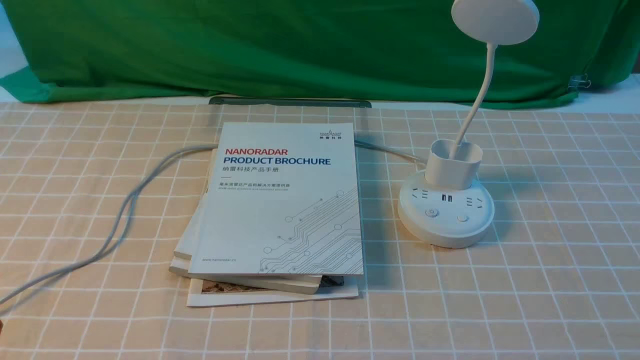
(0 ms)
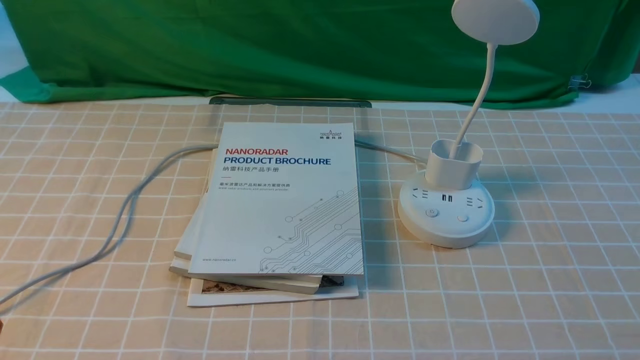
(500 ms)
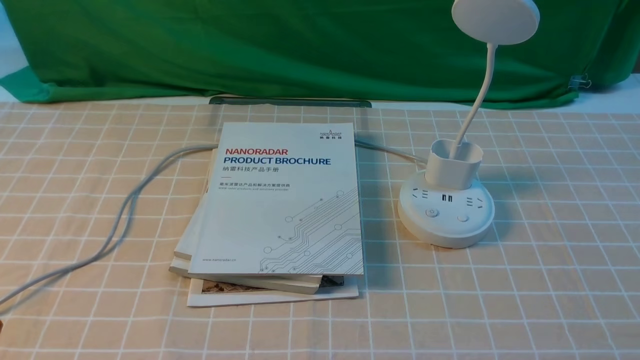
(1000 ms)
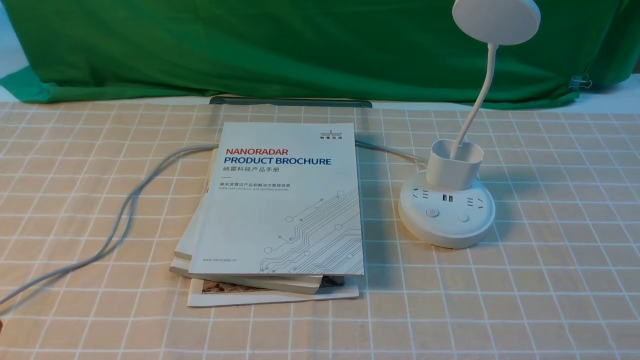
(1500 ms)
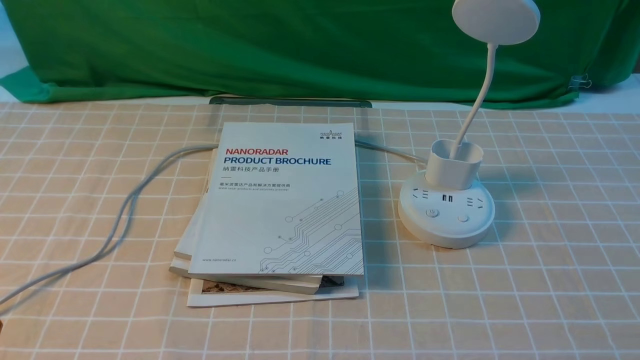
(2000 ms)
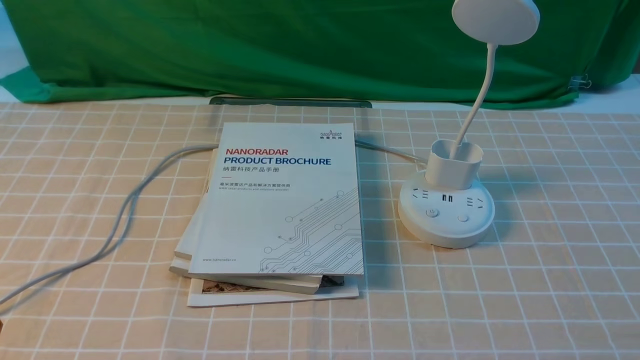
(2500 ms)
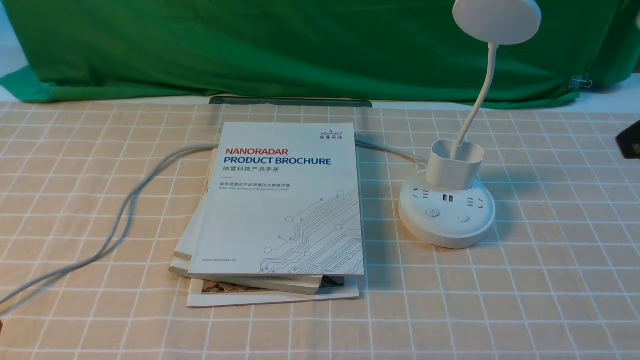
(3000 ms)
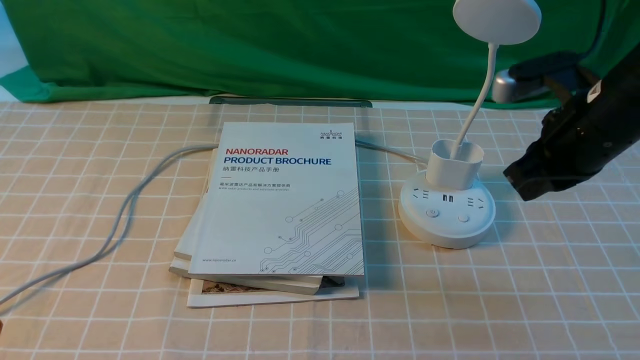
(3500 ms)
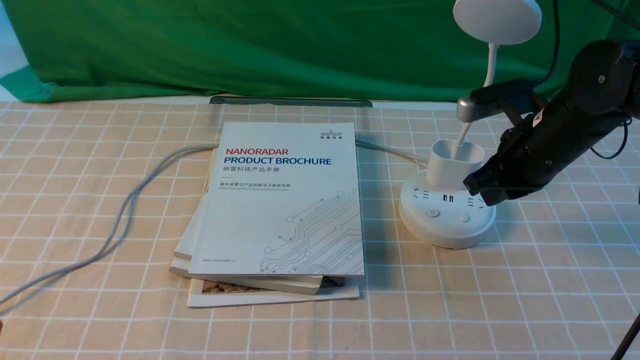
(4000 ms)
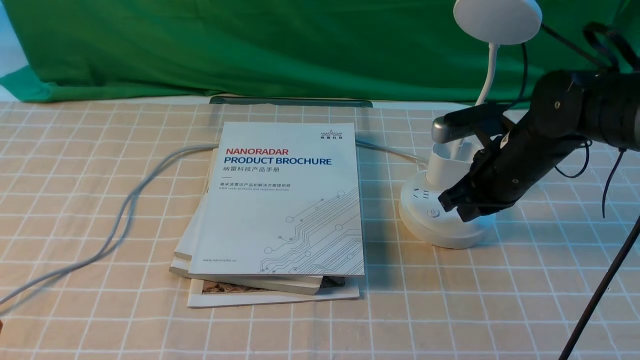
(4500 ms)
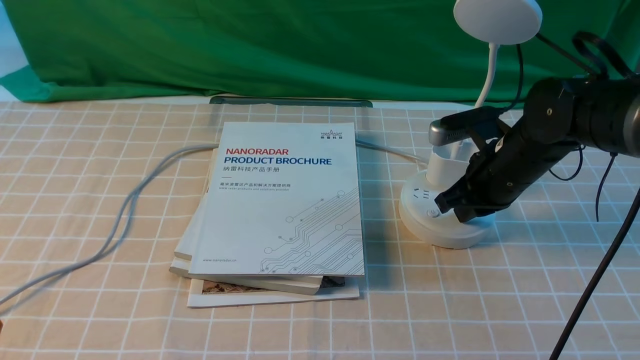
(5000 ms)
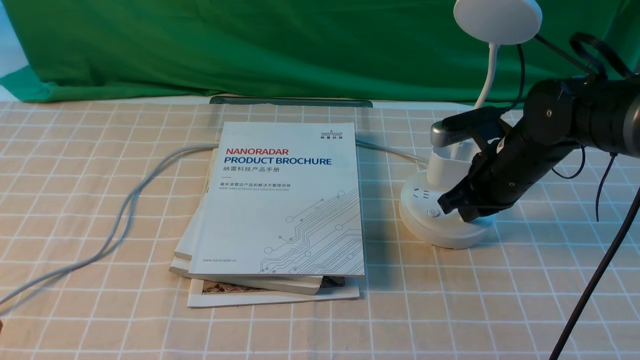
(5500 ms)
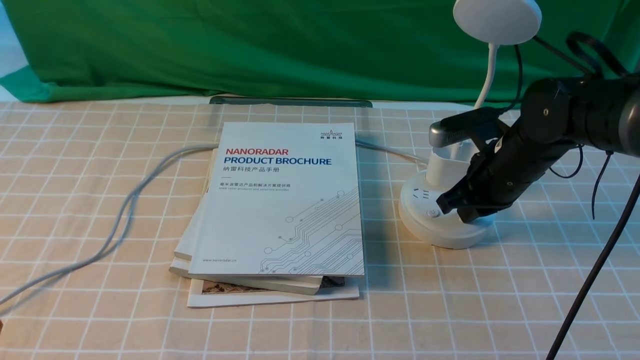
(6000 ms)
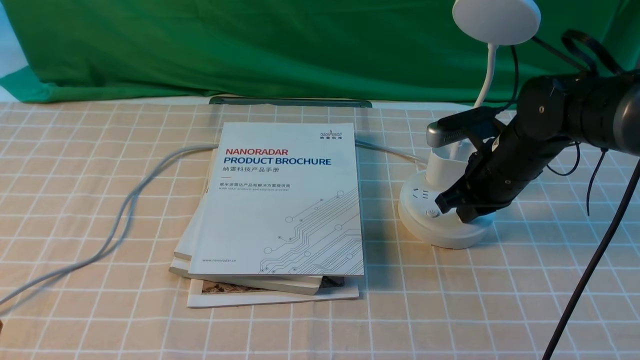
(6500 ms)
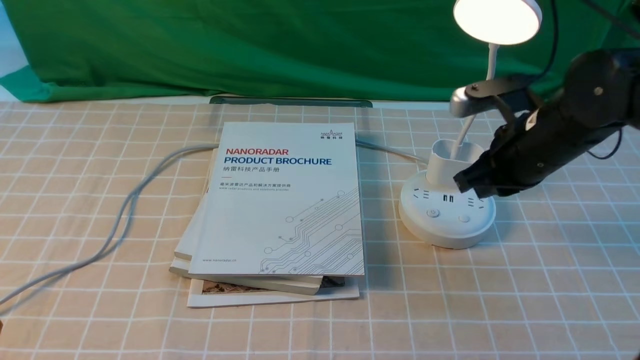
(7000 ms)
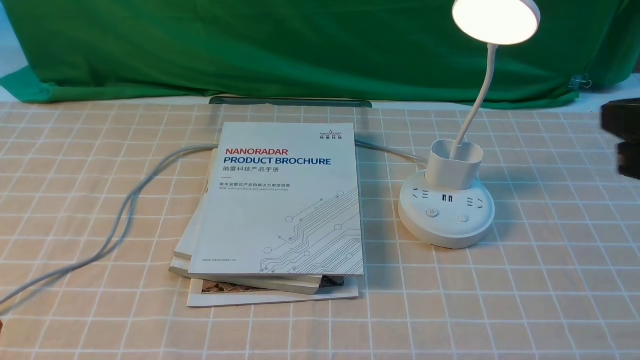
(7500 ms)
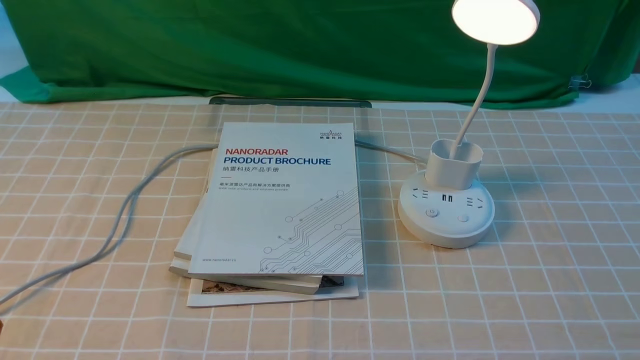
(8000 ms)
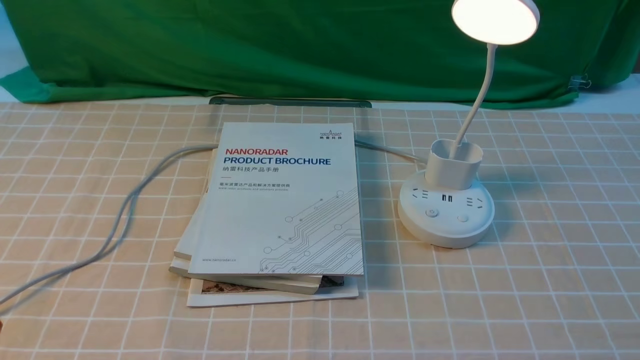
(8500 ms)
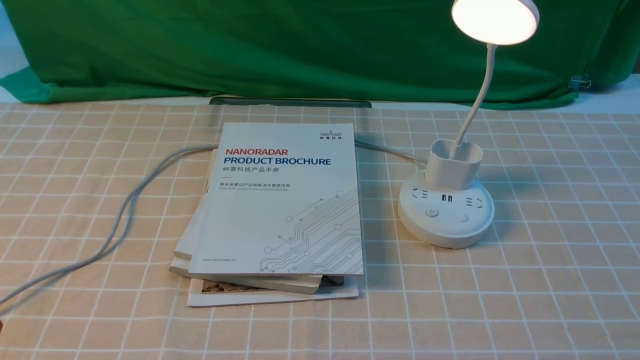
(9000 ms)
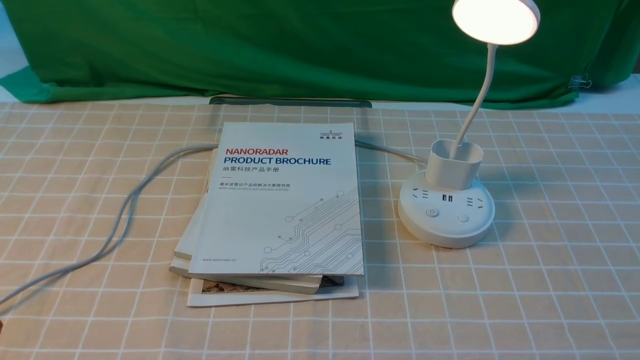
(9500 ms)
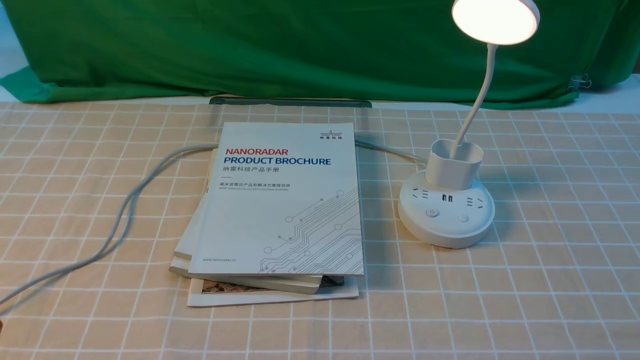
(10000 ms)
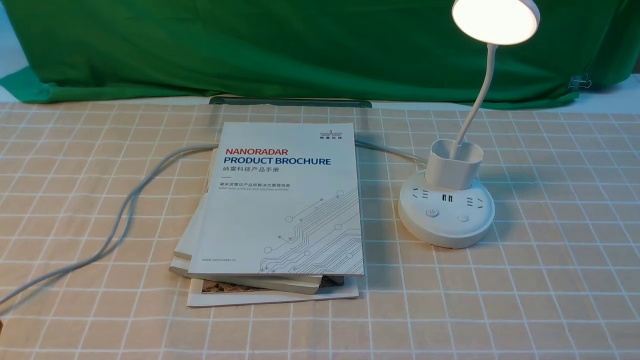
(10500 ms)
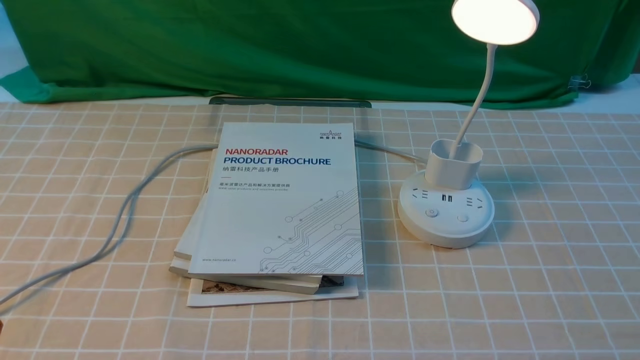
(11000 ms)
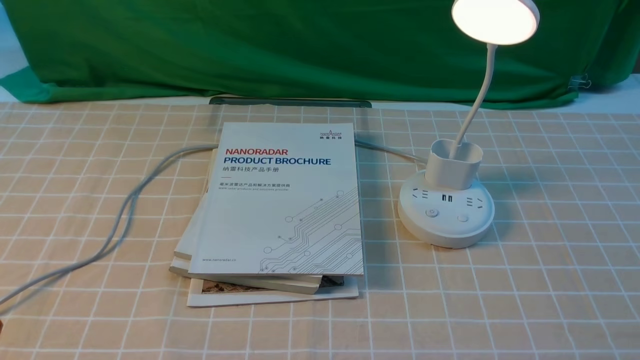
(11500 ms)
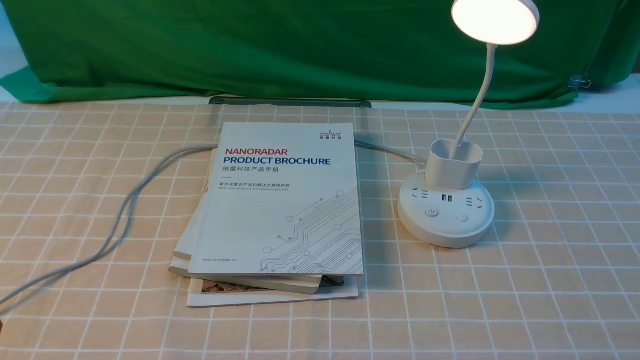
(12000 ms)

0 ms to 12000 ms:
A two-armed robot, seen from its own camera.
Step, 0 ms to 7000 ms: use the right arm to press the button switch on the lamp holder.
2000 ms to 4000 ms: The right gripper travels forward by approximately 30 cm, and closes up.
4000 ms to 6000 ms: The right gripper heads downward, covering about 5 cm.
6000 ms to 8000 ms: The right gripper shifts approximately 30 cm backward and upward.
10000 ms to 12000 ms: Neither gripper changes place.

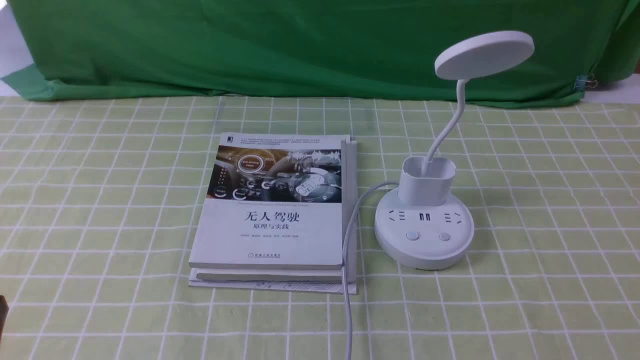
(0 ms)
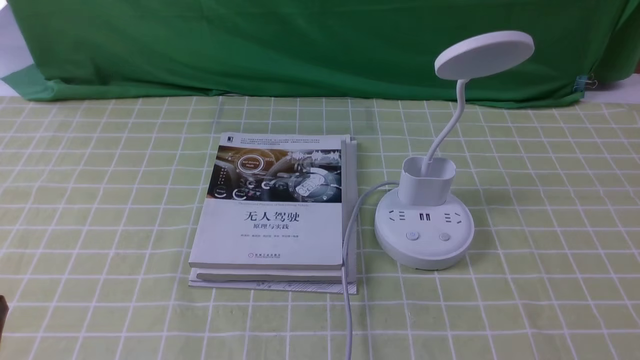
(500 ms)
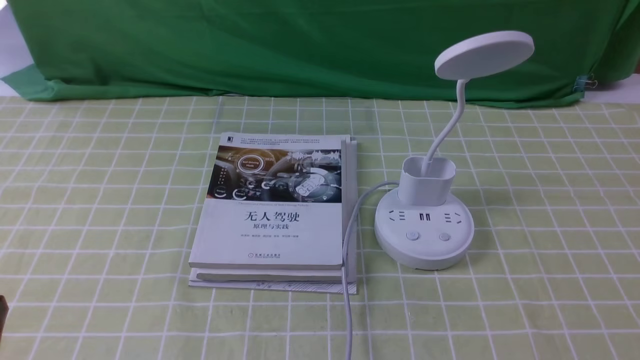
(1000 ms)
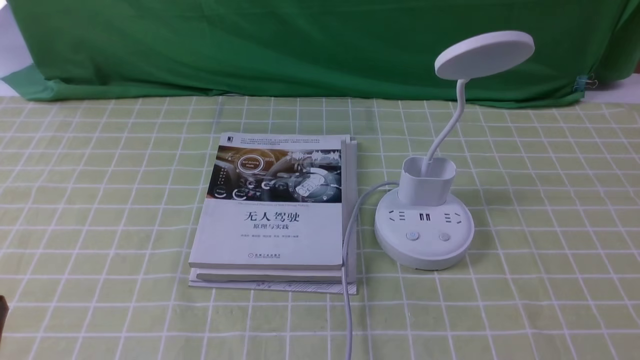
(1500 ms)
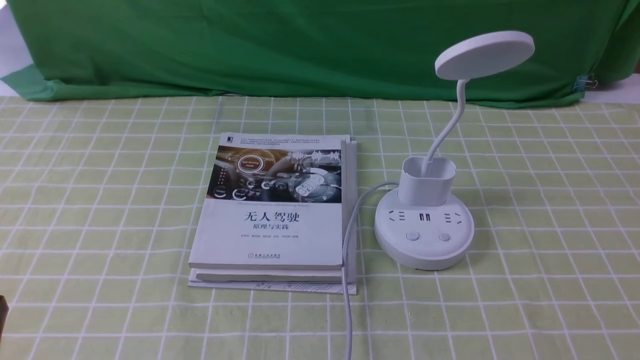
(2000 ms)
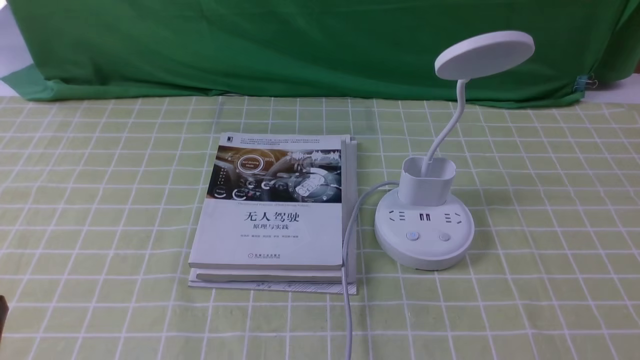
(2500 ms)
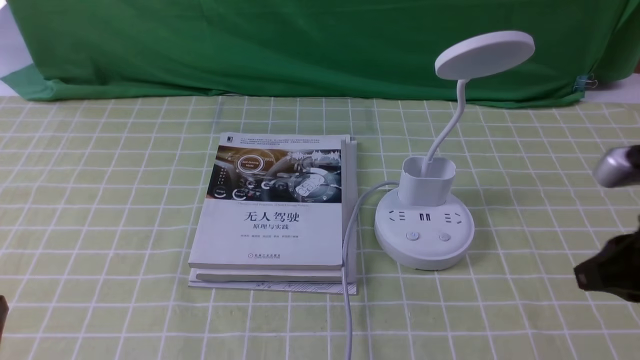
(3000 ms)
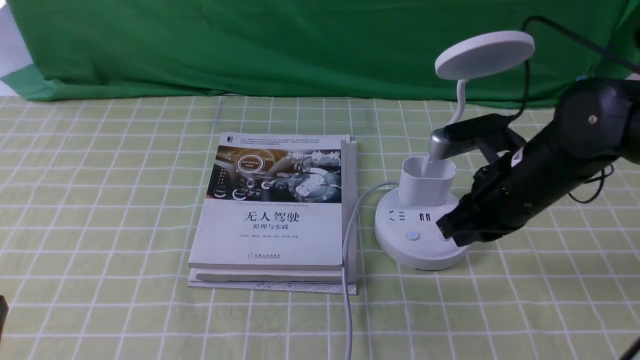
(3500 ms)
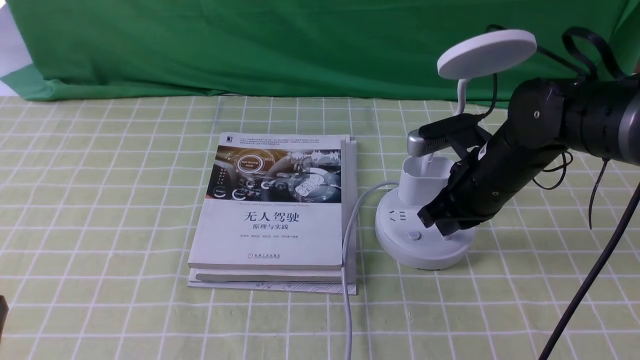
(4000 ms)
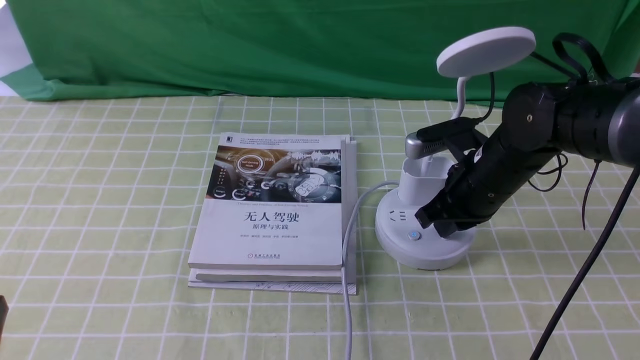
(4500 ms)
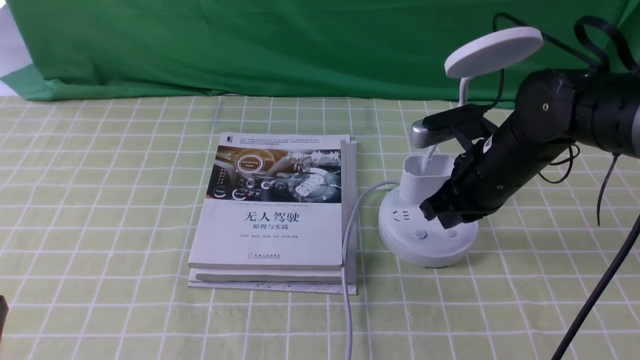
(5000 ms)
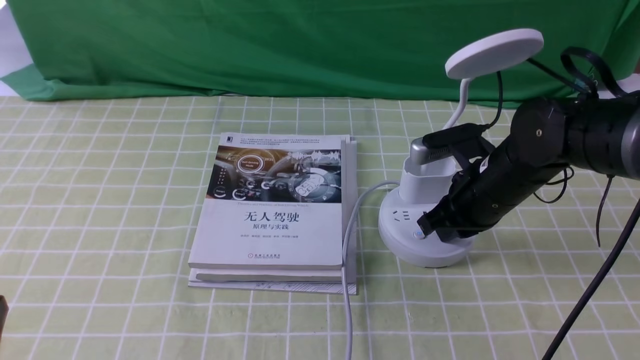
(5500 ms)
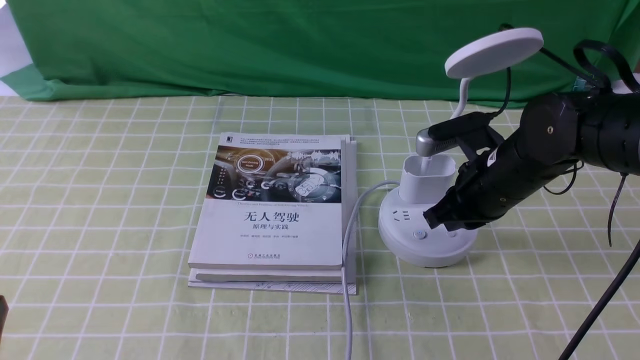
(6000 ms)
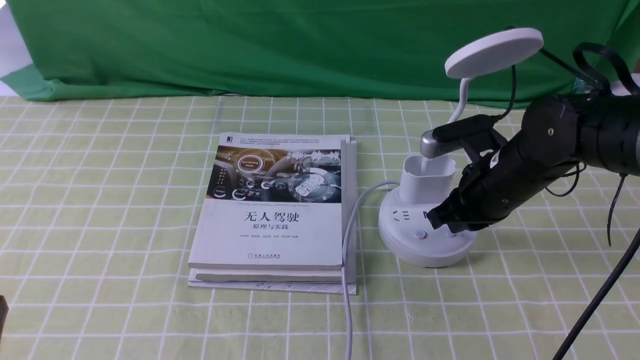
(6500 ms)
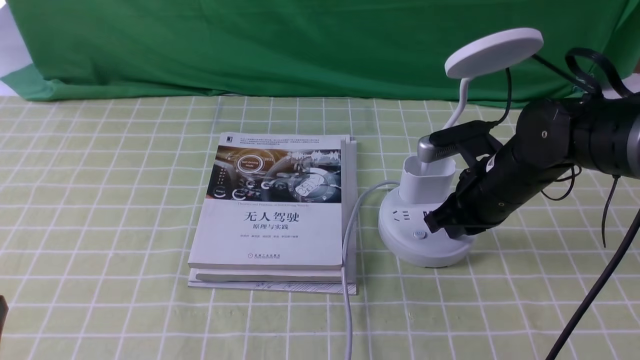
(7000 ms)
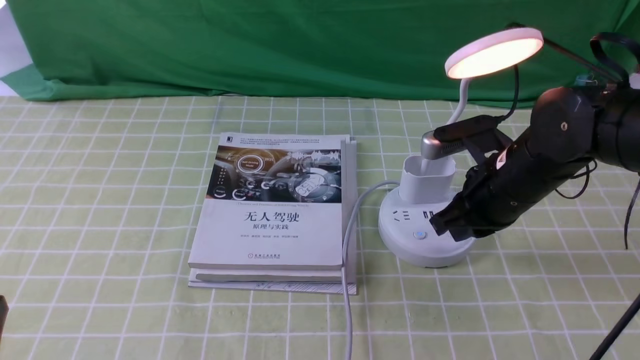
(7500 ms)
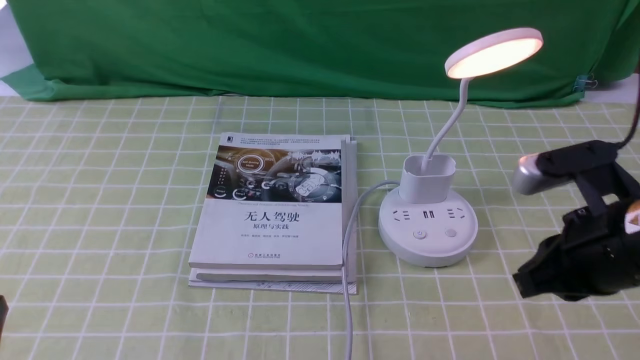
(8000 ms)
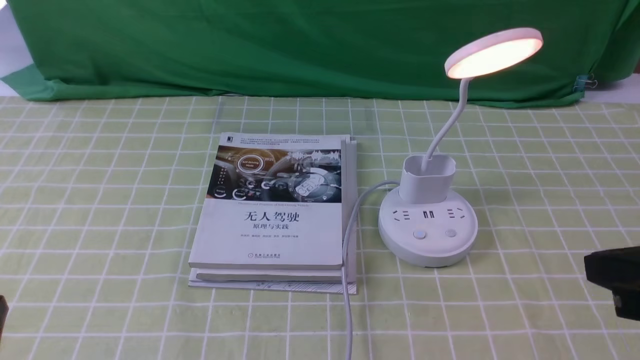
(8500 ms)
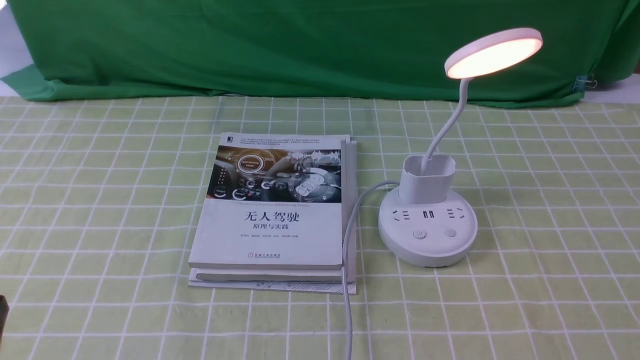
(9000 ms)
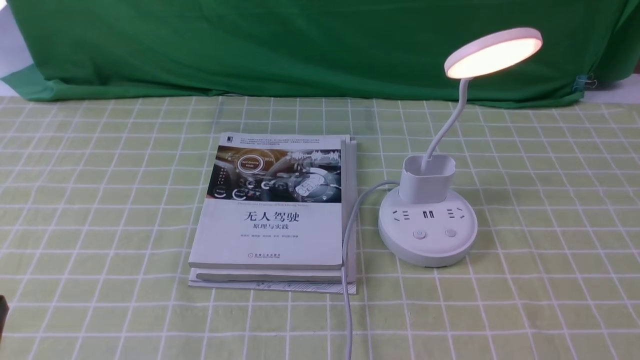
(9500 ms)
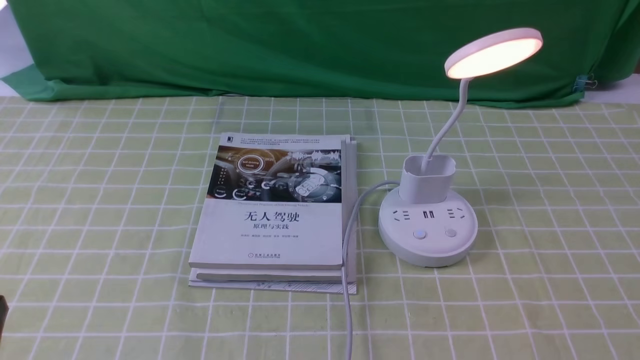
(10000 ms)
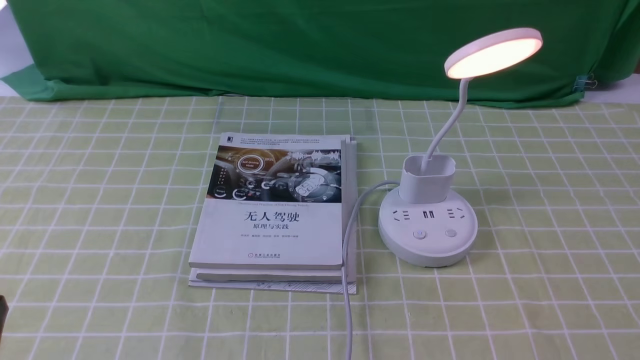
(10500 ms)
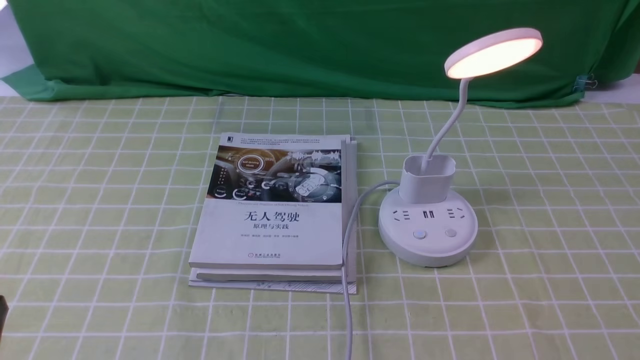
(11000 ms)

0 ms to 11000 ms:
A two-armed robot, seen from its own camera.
Step, 0 ms to 7500 ms: use the right arm to press the button switch on the lamp holder.
2000 ms to 3500 ms: The right gripper is displaced forward and to the left by roughly 30 cm, and closes.
3500 ms to 5500 ms: The right gripper shifts by about 5 cm.
5500 ms to 7500 ms: The grippers stay close to where they were, moving slightly.
7500 ms to 9000 ms: The right gripper shifts about 25 cm backward and to the right.
